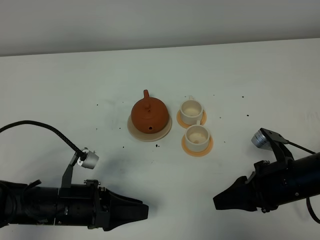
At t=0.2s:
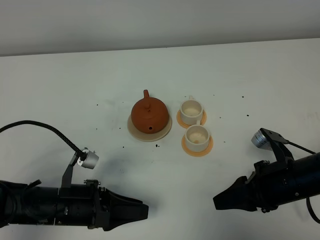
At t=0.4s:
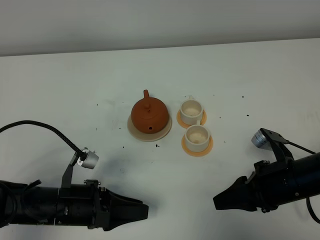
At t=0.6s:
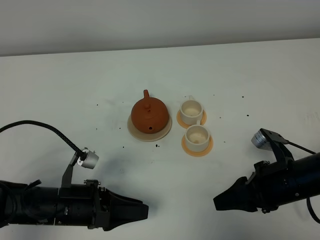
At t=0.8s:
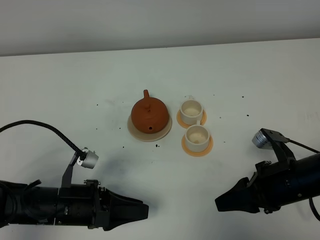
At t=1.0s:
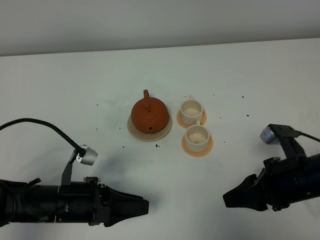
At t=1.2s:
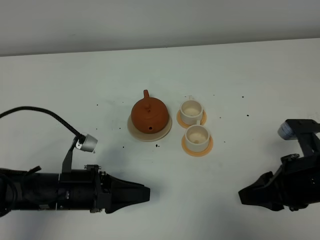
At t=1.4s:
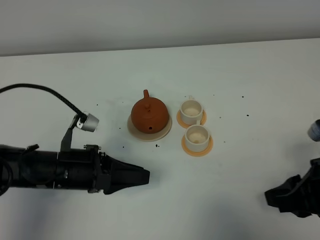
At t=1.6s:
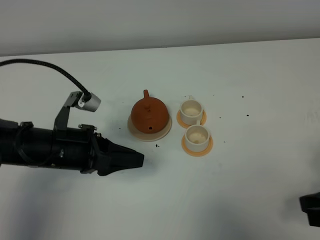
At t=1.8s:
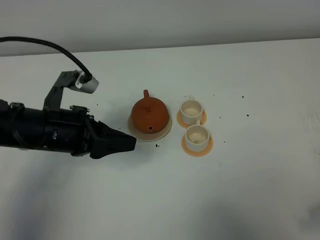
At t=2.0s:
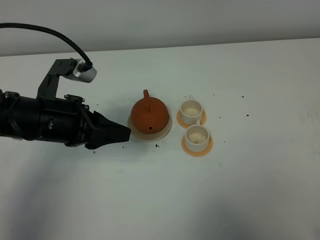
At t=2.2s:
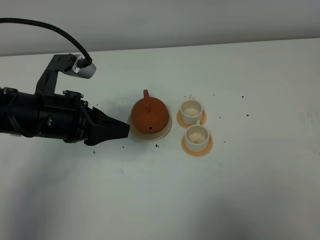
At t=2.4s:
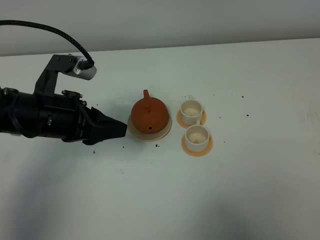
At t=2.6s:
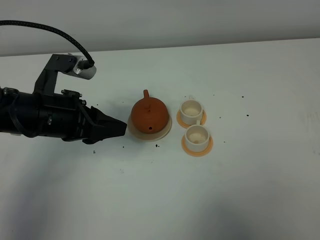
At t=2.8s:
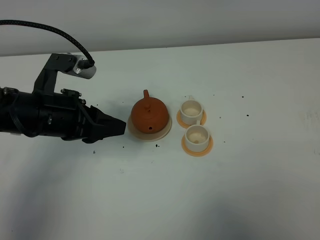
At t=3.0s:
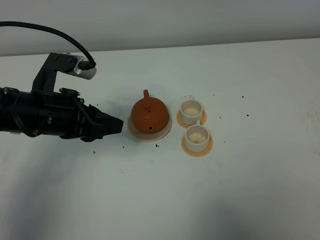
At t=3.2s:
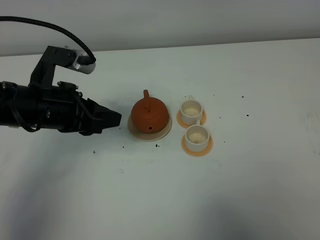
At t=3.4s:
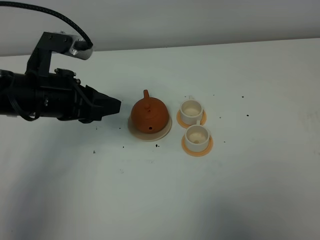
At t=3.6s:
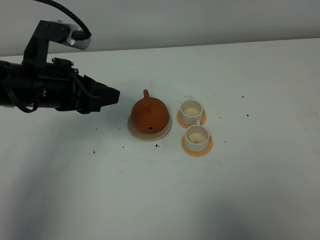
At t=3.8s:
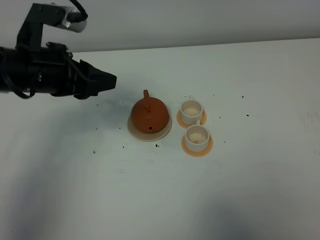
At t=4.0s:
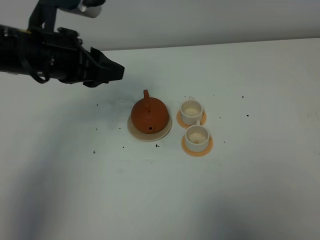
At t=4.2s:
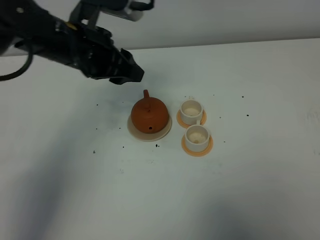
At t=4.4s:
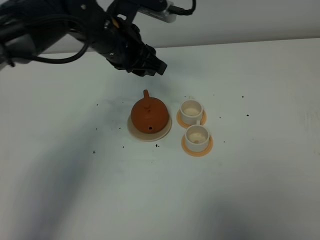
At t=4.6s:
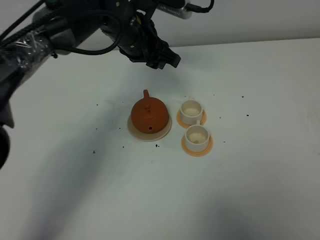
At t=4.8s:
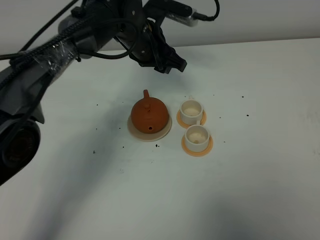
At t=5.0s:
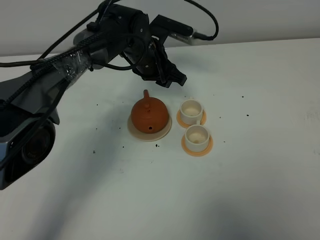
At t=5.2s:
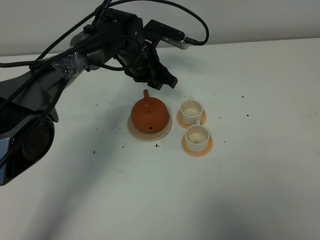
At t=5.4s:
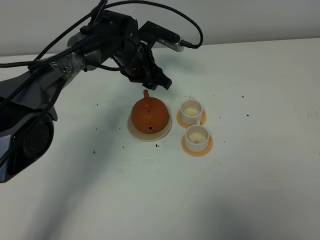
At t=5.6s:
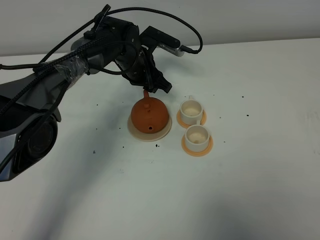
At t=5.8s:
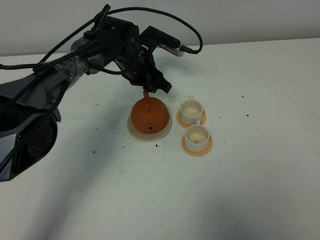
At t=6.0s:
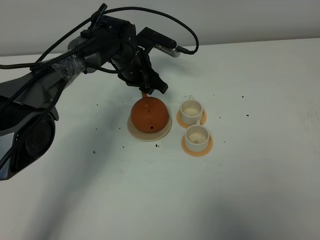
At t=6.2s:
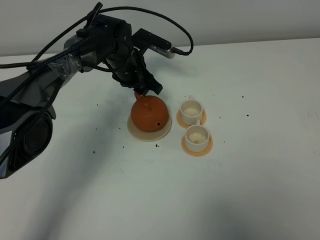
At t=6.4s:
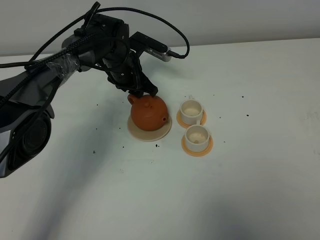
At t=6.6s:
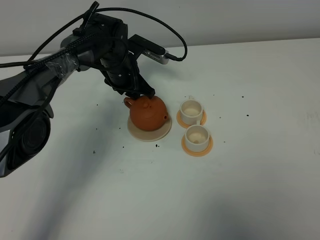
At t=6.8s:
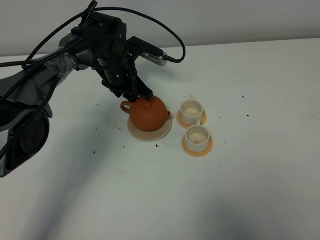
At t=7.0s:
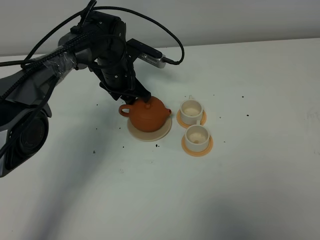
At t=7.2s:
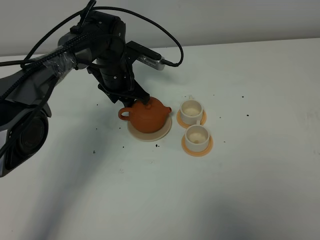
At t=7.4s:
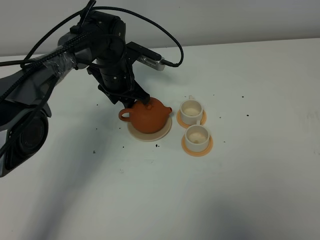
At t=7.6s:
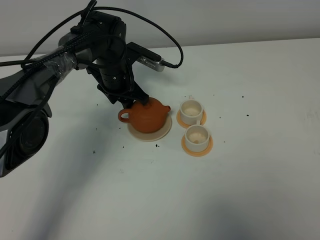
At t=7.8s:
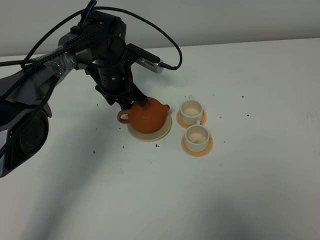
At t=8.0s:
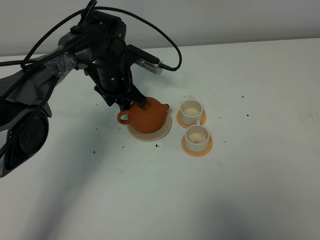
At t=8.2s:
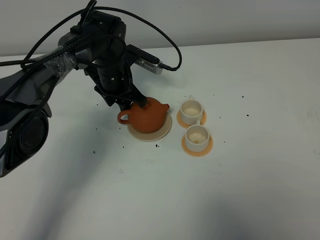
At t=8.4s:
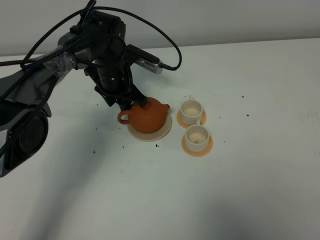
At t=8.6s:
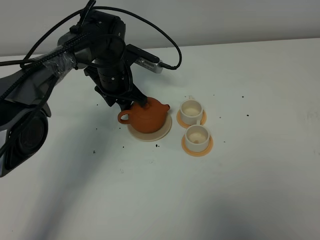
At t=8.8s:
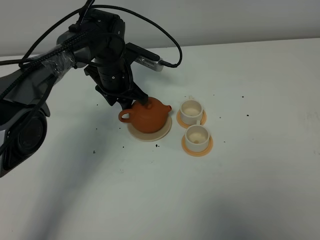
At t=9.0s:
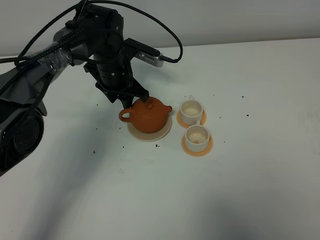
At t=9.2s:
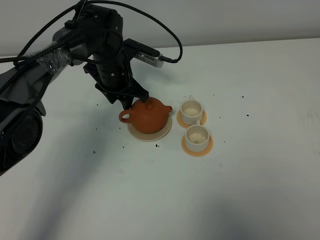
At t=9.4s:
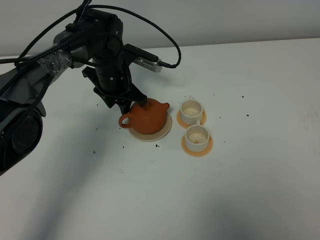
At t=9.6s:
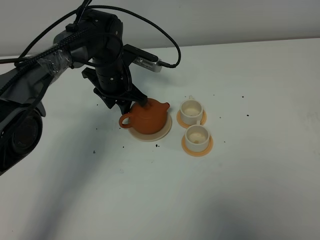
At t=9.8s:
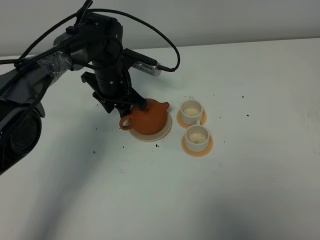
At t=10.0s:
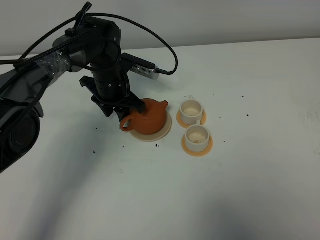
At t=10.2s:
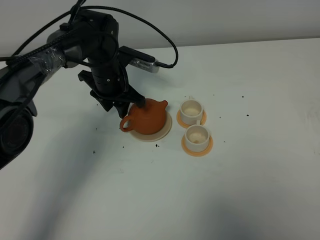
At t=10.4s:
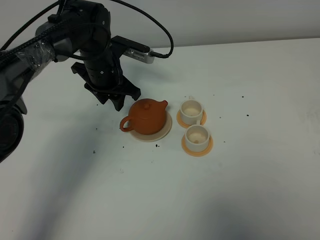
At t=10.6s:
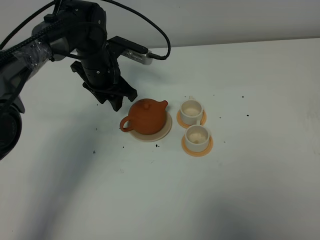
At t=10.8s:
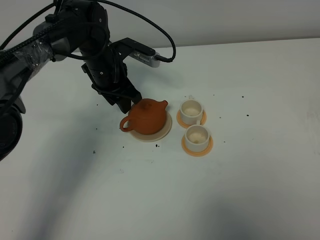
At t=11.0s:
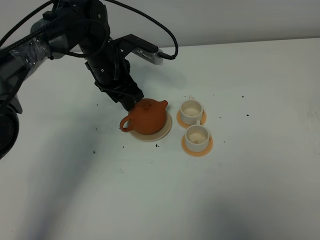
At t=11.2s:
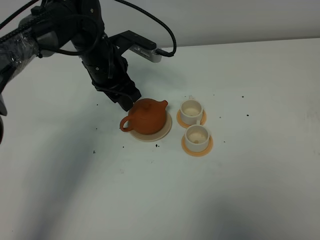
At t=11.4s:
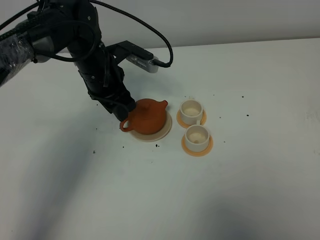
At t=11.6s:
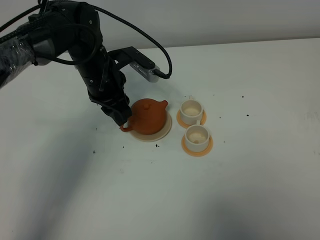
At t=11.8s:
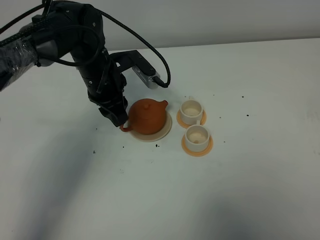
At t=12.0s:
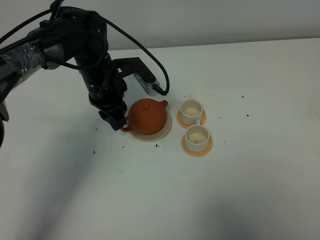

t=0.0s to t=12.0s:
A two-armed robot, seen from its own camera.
Task of the whole recording: grasp the brown teapot and pour the tea into the two white teacups one by one, put the brown teapot back in its original place.
t=0.0s to t=1.6s: The right gripper shifts about 15 cm upward, backward and to the right; the left gripper shifts about 10 cm upward and forward.
t=1.6s to t=3.0s: The left gripper shifts by some 5 cm, while the right gripper heads backward and to the right, covering roughly 10 cm, and closes its fingers.
t=3.0s to t=4.4s: The left gripper goes approximately 15 cm forward and to the right.
t=4.4s to t=6.0s: The left gripper shifts roughly 15 cm downward and forward.
t=6.0s to t=9.0s: The grippers stay close to where they were, moving slightly.
t=9.0s to t=10.4s: The grippers move only a little.

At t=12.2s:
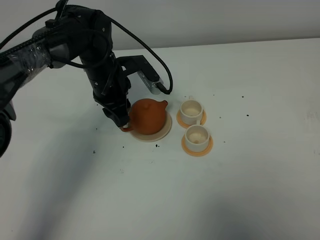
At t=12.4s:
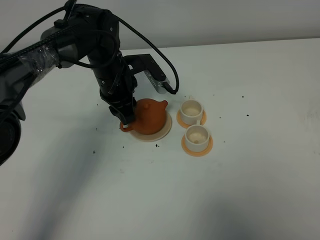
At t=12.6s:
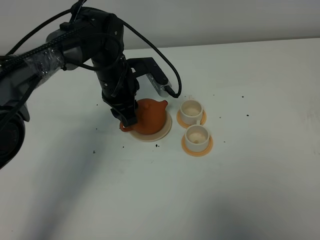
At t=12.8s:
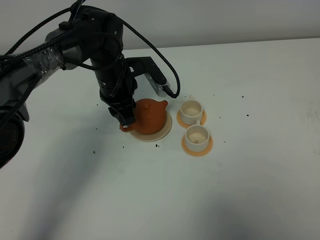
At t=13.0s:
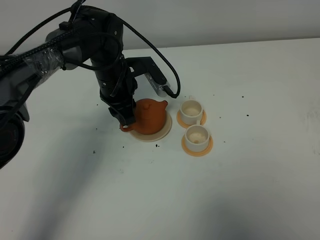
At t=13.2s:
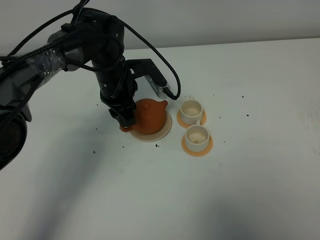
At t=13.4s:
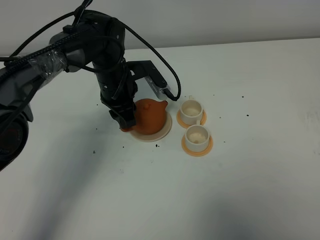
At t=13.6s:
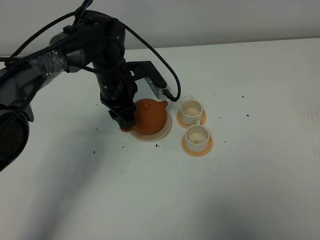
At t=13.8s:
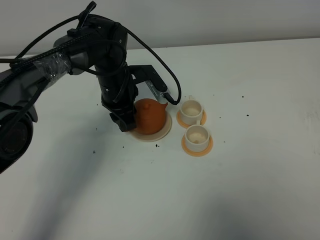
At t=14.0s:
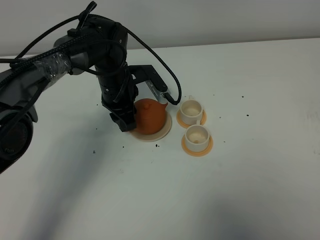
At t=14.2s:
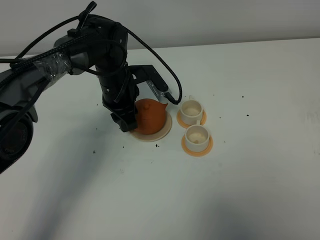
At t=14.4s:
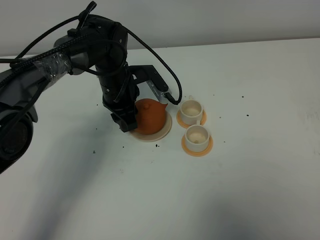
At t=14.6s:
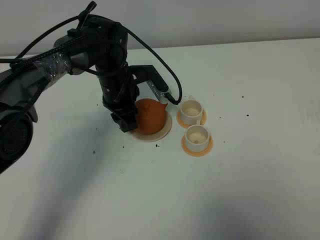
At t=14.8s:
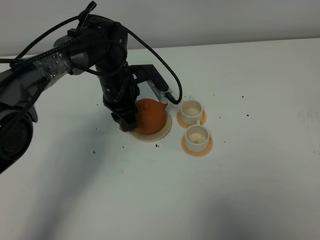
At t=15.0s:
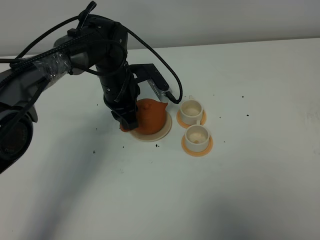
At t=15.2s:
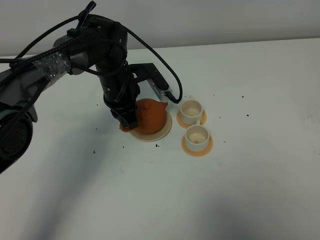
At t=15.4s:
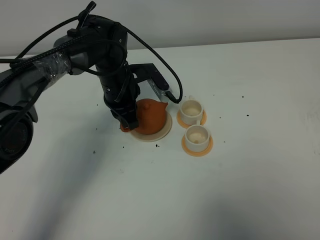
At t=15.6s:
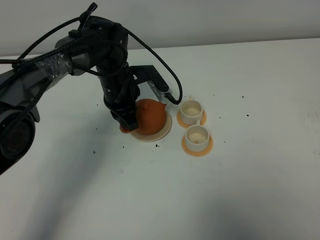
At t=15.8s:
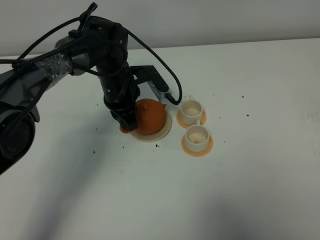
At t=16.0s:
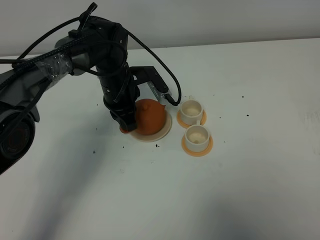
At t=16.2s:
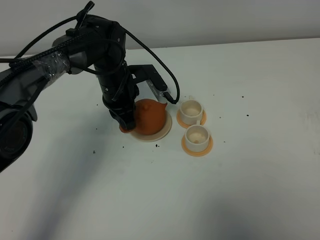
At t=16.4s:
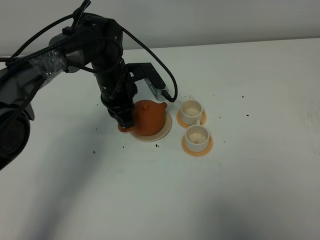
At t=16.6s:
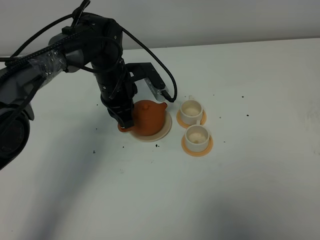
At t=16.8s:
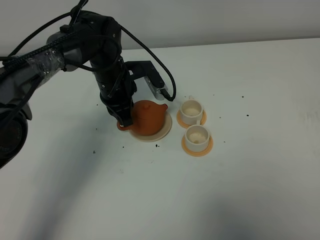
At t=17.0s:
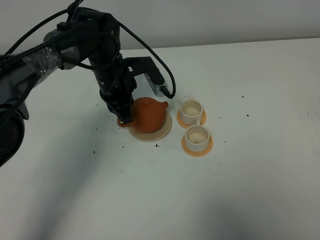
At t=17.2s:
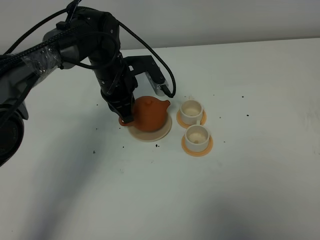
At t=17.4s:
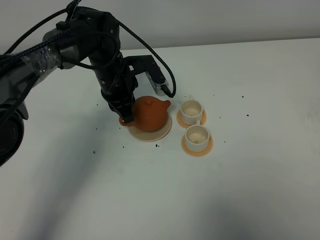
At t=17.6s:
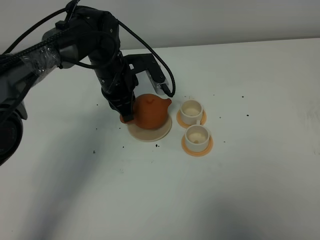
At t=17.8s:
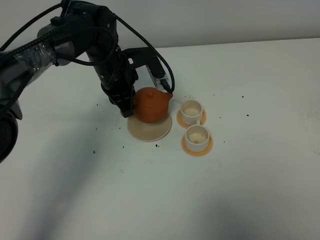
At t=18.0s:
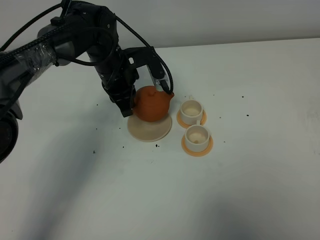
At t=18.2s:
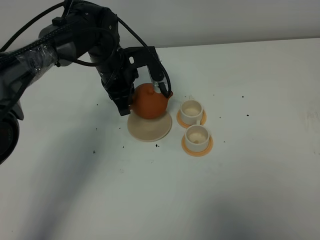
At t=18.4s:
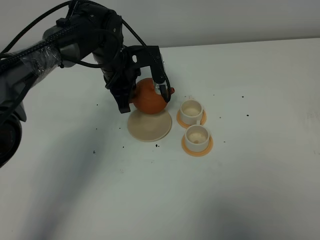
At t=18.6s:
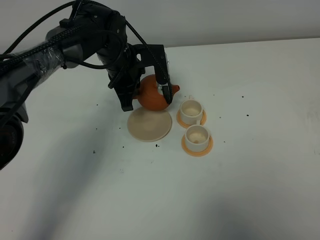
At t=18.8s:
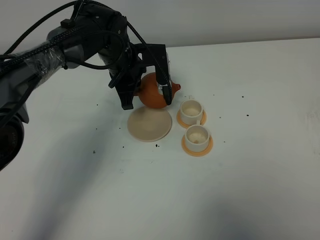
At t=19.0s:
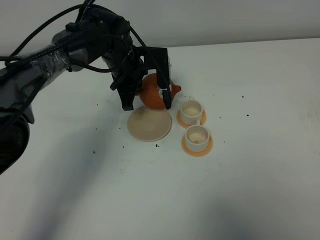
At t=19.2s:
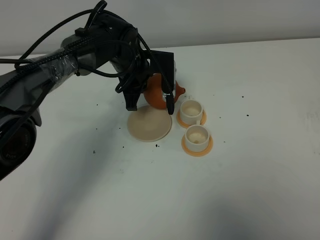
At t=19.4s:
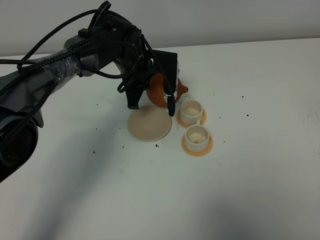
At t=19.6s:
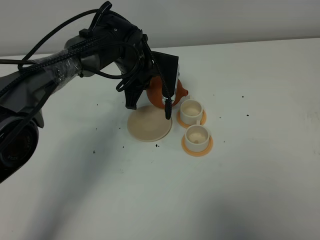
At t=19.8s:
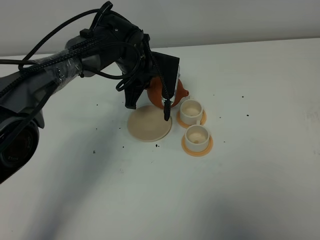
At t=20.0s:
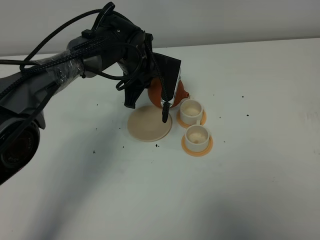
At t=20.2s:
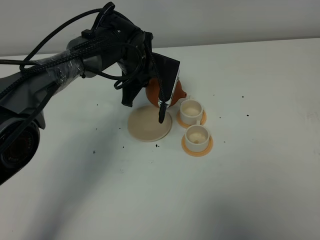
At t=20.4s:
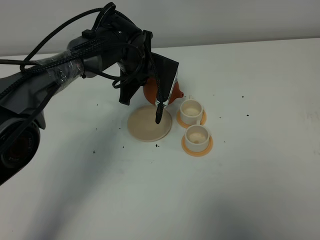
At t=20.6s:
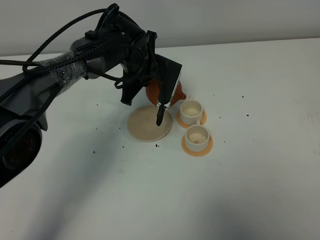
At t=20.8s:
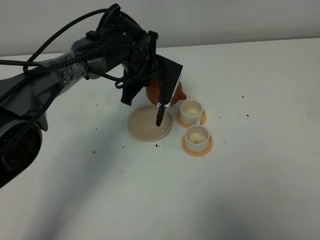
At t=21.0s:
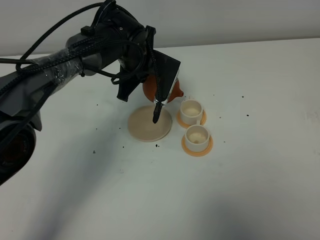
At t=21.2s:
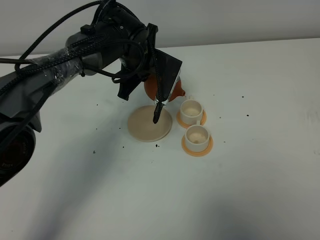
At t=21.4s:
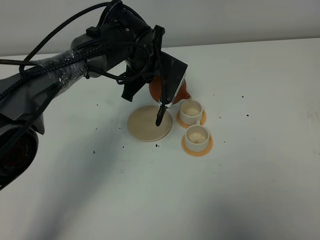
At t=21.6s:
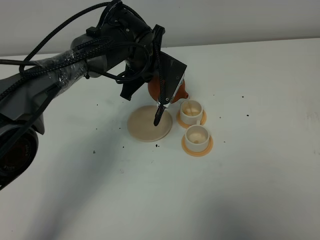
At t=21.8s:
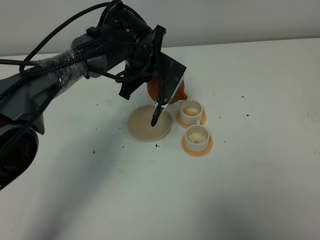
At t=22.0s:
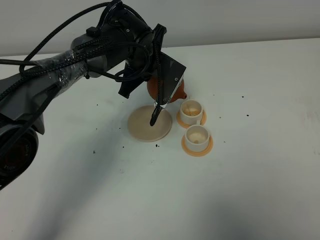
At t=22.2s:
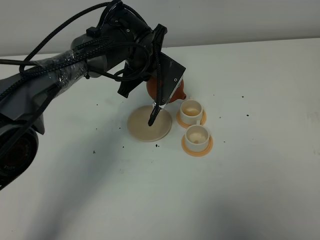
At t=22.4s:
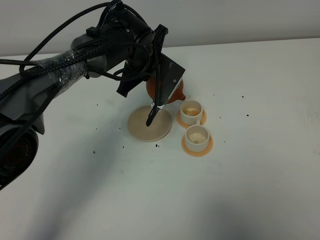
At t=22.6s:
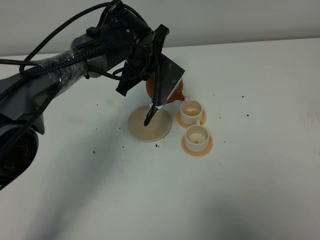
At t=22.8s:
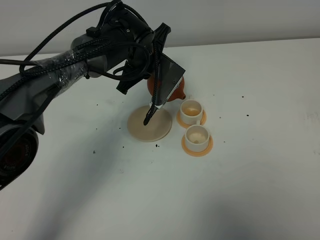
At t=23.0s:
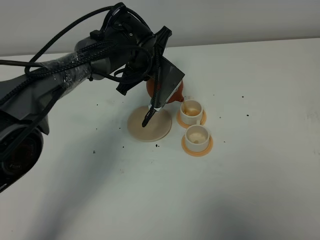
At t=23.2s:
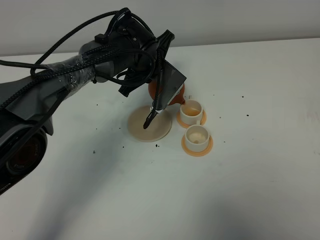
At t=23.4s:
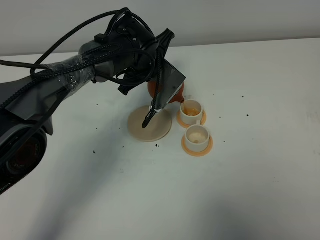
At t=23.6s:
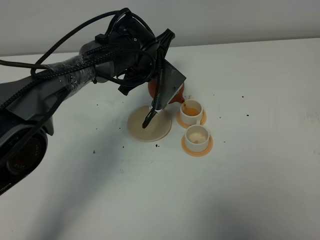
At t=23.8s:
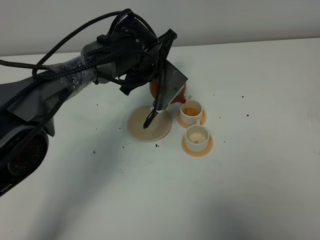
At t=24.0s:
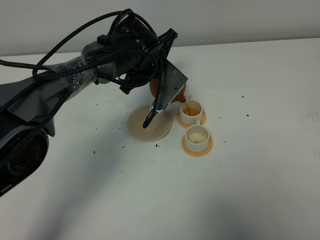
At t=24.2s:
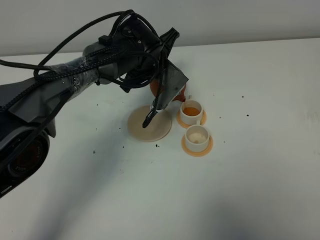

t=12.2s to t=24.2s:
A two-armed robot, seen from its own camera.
Task of the whole recording: grasp the brown teapot and pour the tea into the two white teacups one by one, put the brown teapot back in its original place.
Step, t=12.2s to t=17.2s: Pick up the teapot with the left gripper.
t=12.2s to t=13.8s: The grippers stay close to where they were, moving slightly.
t=13.8s to t=15.2s: The left gripper closes its fingers.
t=15.2s to t=16.6s: The two grippers keep their place.
t=16.6s to t=18.2s: The grippers move only a little.
t=19.8s to t=21.2s: The grippers stay close to where they were, moving slightly.
t=21.2s to t=22.6s: The grippers stay close to where they were, moving slightly.
t=22.6s to t=24.2s: There are only small adjustments of the grippers.
